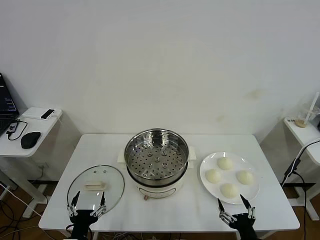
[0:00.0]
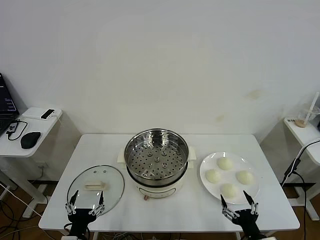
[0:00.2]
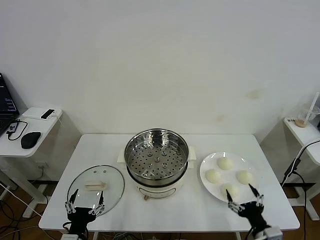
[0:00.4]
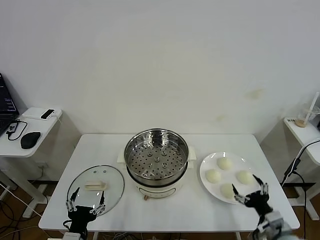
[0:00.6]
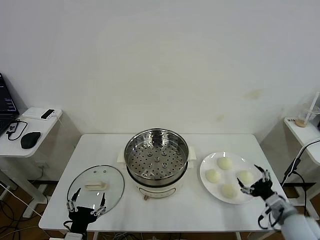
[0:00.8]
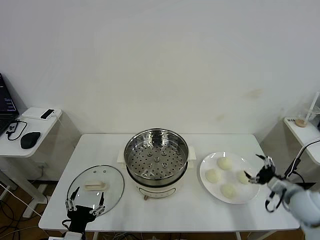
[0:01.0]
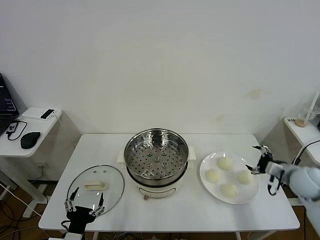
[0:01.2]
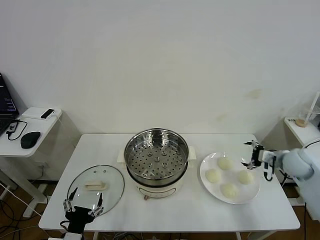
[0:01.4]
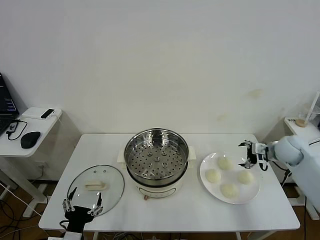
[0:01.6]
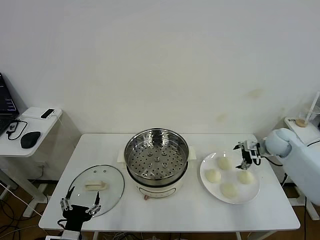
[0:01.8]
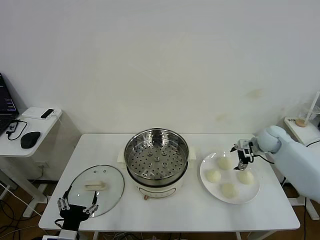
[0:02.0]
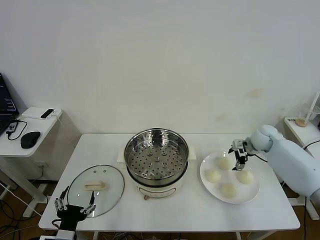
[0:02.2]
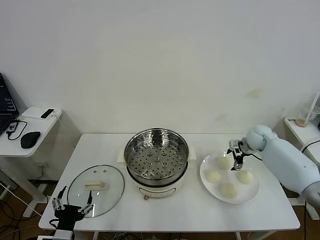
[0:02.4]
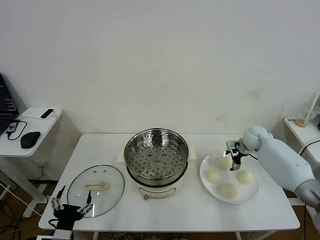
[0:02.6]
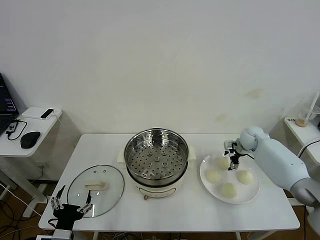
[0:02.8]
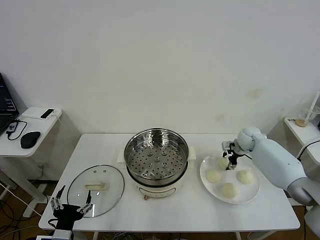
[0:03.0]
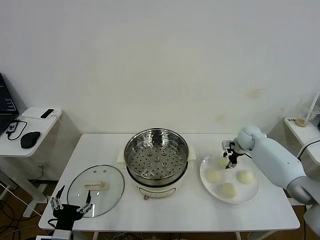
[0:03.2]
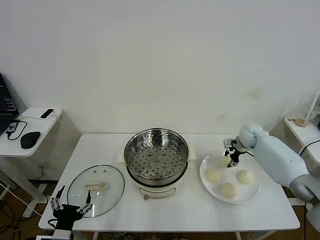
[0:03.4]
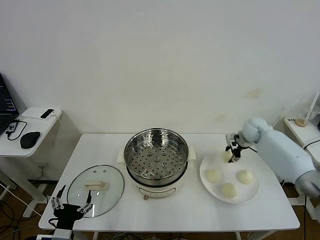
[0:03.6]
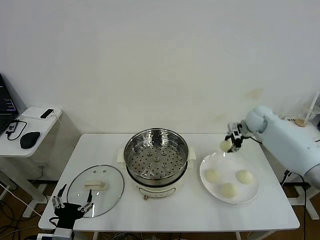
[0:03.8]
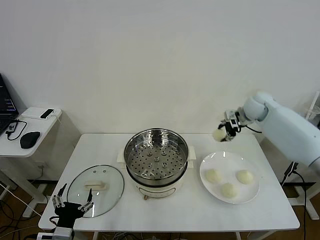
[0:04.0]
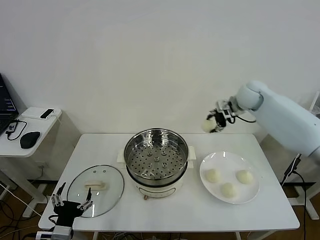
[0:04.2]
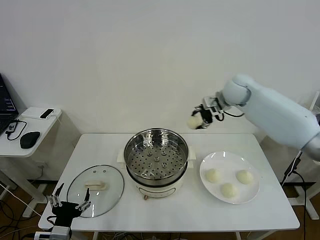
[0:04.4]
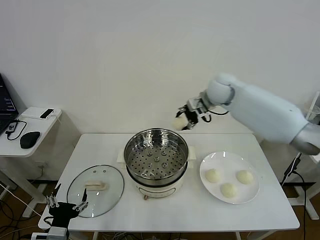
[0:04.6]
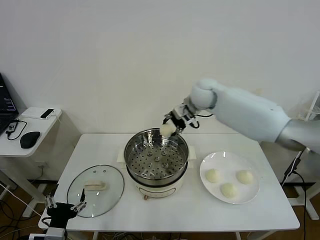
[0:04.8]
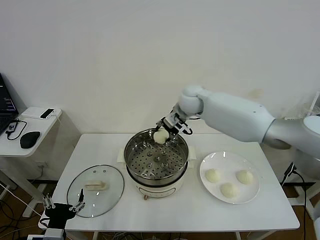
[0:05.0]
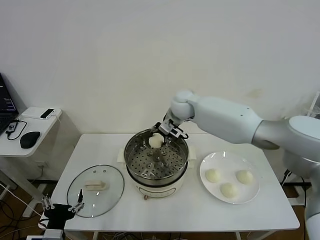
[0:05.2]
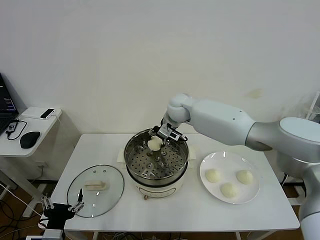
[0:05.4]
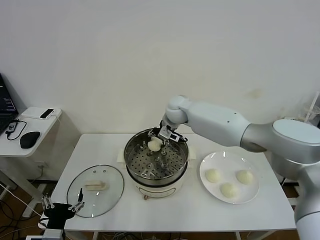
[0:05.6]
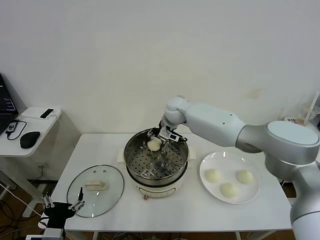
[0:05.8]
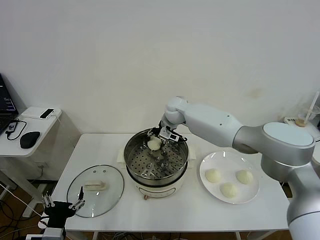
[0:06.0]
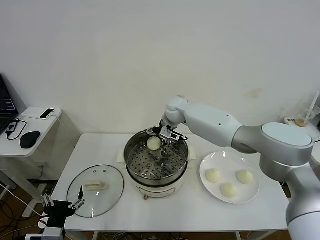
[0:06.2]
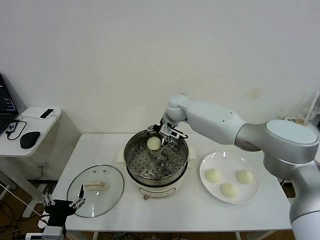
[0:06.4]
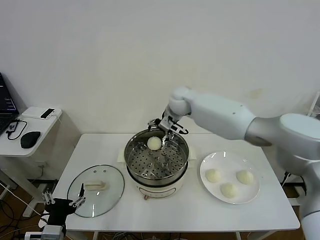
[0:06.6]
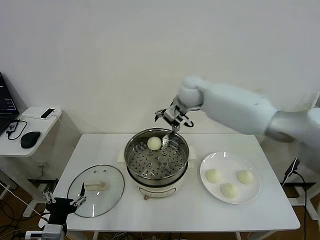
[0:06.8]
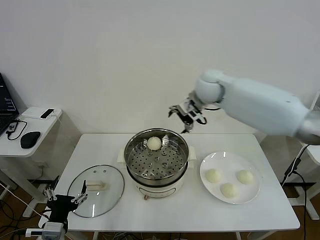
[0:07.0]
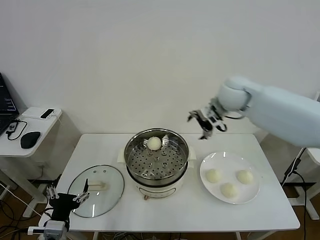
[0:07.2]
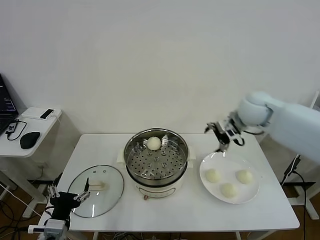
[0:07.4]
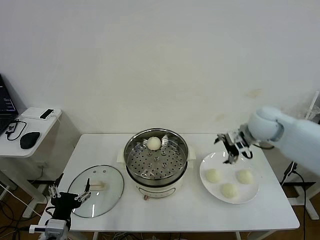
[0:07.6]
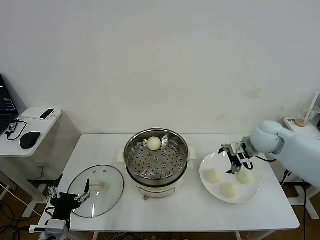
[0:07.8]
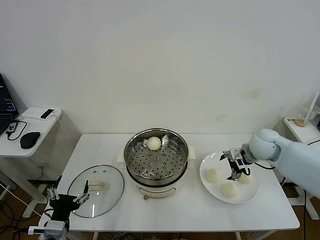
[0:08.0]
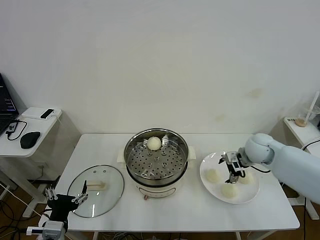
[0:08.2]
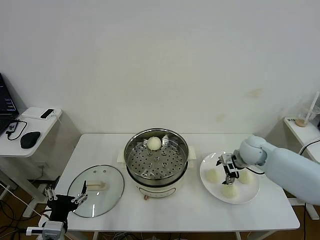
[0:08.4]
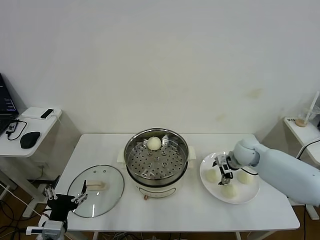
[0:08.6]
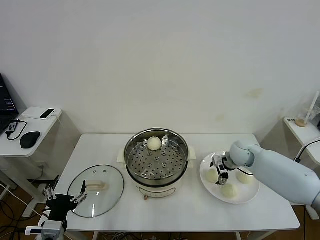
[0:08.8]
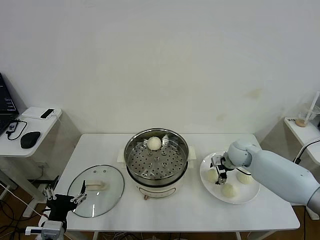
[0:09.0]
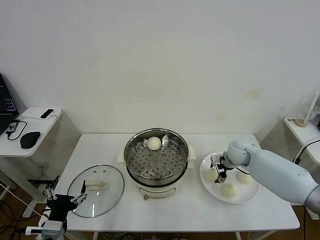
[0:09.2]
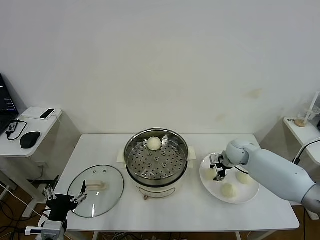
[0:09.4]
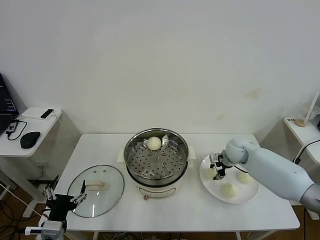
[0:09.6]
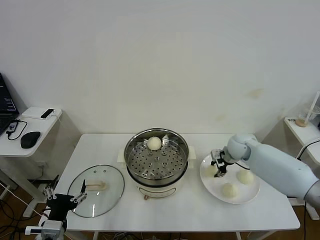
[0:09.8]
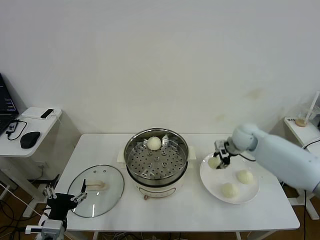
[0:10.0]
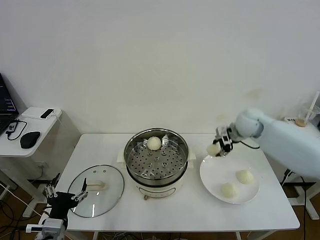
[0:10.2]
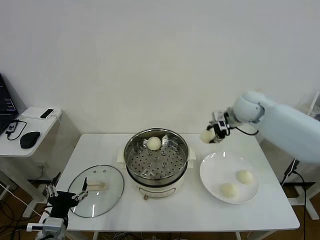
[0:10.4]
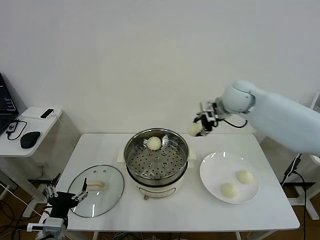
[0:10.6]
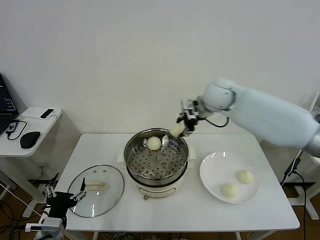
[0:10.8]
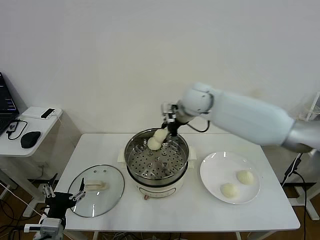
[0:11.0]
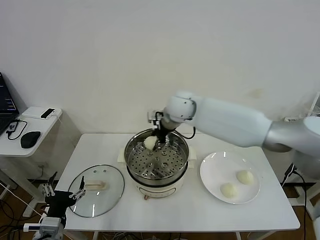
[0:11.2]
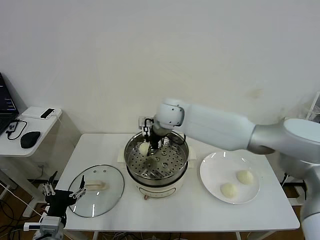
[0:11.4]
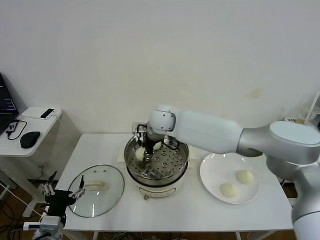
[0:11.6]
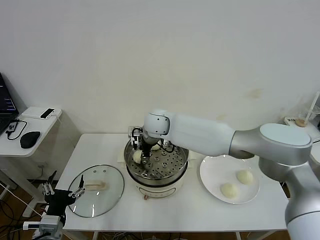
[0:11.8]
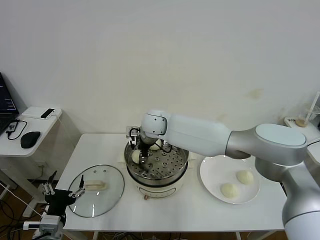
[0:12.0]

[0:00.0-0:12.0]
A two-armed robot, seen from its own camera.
Task of the whole recording: take steamed baozi put them in steamer then cover it.
Step, 0:00.0 to 0:03.0: Grasp the baozi in the plate with right gripper.
Step, 0:03.2 to 0:06.4: Place the baozi on the steamer with right gripper.
Step, 0:06.6 to 0:09.4: Grasp the baozi in the plate with right gripper.
0:01.6 to 0:03.0: The right gripper travels forward, to the left and downward by about 15 cm, and closes its fingers.
0:03.0 to 0:04.4: The right gripper goes approximately 25 cm upward and to the left.
0:04.4 to 0:06.0: The right gripper travels to the left and downward by about 20 cm.
0:06.0 to 0:07.6: The right gripper shifts approximately 30 cm to the right and backward, and opens up.
0:07.6 to 0:09.0: The right gripper is displaced downward by some 15 cm.
0:09.0 to 0:10.4: The right gripper moves upward, approximately 20 cm, and closes its fingers.
0:10.4 to 0:12.0: The right gripper travels to the left by some 30 cm.

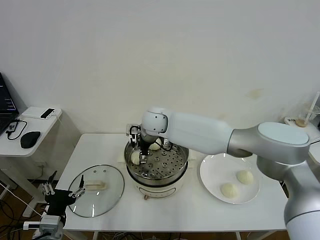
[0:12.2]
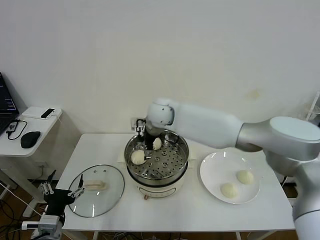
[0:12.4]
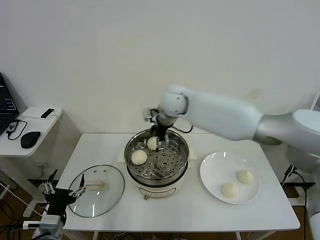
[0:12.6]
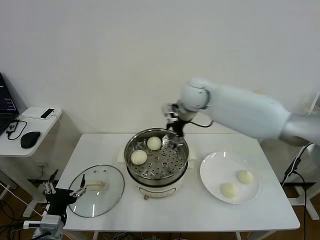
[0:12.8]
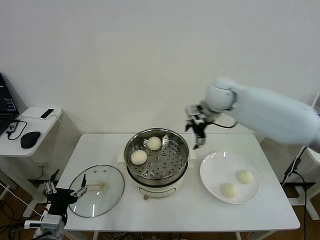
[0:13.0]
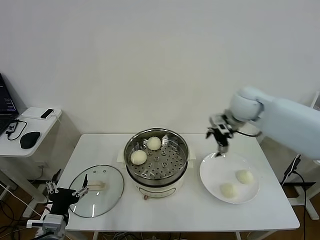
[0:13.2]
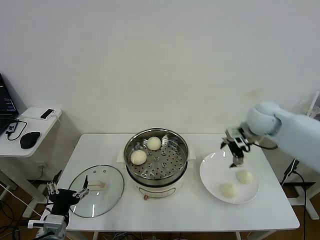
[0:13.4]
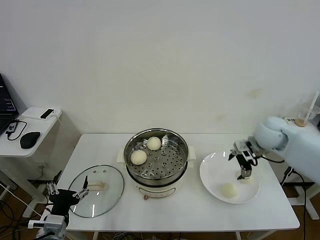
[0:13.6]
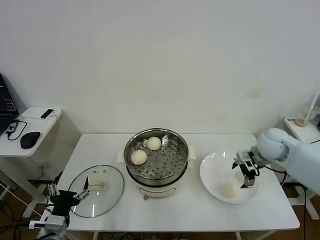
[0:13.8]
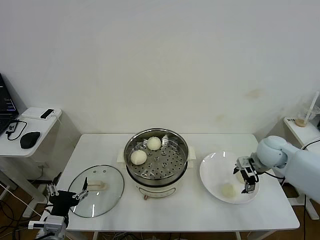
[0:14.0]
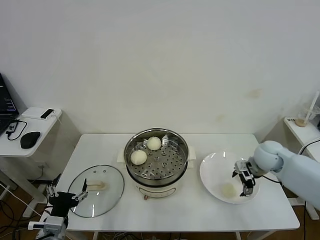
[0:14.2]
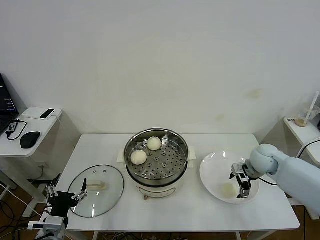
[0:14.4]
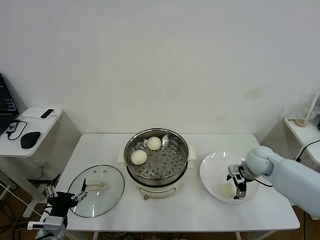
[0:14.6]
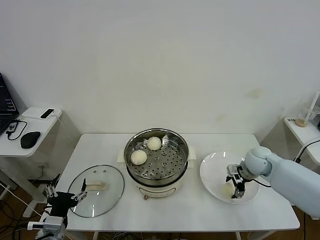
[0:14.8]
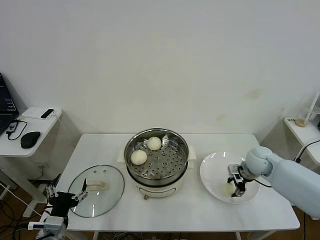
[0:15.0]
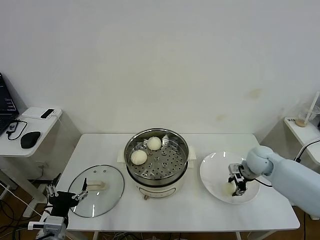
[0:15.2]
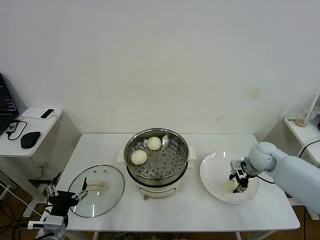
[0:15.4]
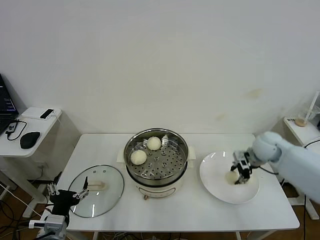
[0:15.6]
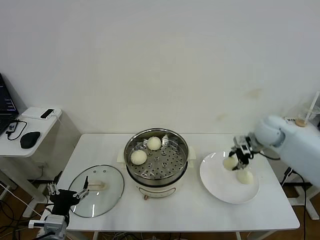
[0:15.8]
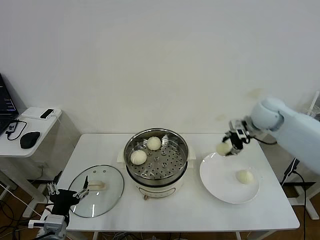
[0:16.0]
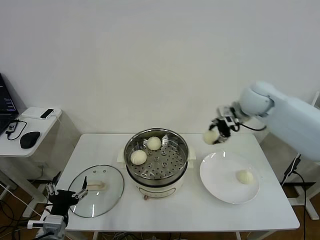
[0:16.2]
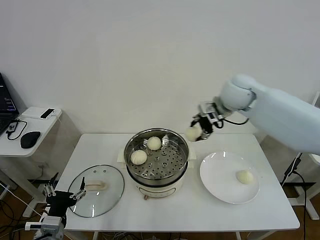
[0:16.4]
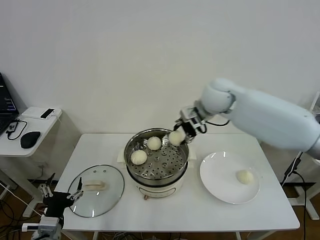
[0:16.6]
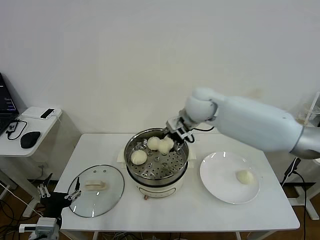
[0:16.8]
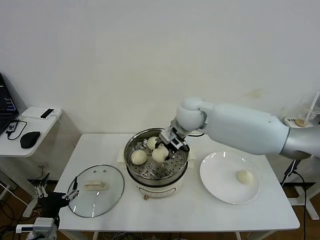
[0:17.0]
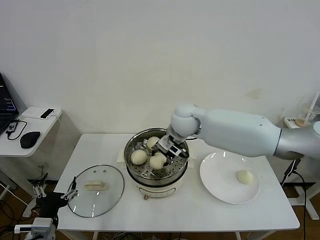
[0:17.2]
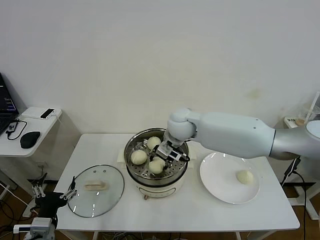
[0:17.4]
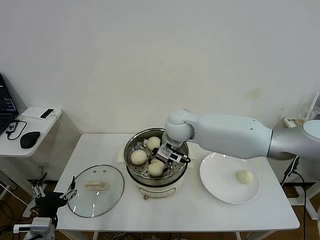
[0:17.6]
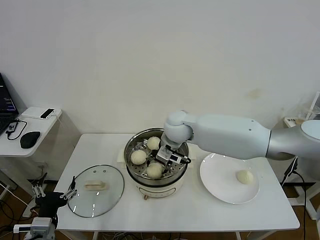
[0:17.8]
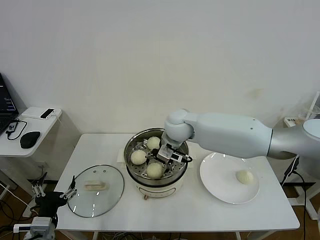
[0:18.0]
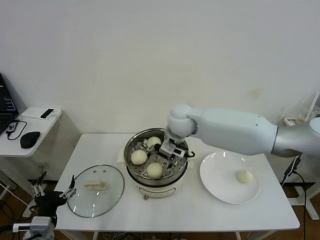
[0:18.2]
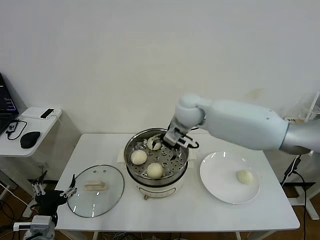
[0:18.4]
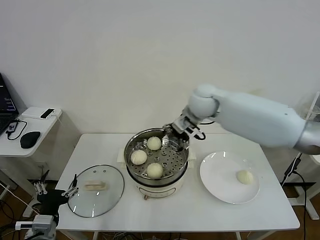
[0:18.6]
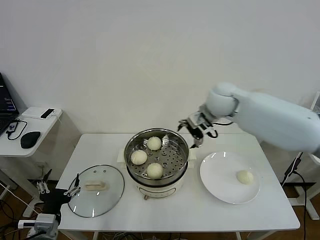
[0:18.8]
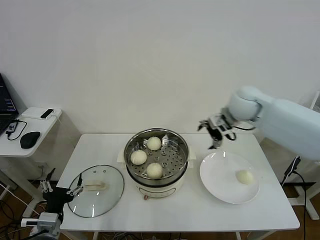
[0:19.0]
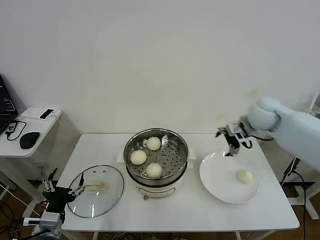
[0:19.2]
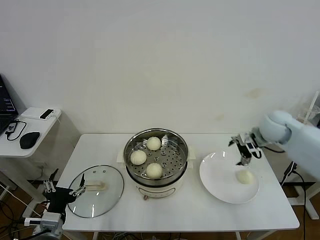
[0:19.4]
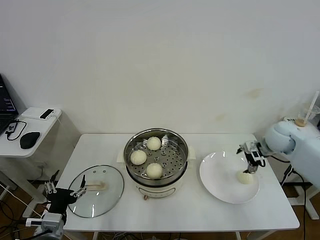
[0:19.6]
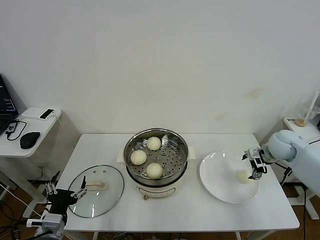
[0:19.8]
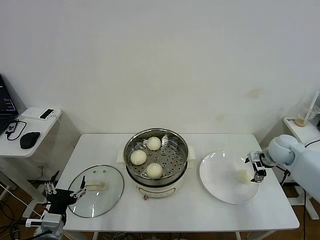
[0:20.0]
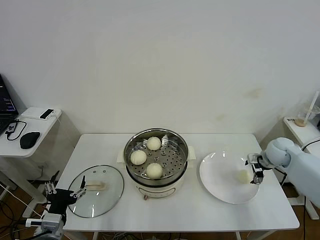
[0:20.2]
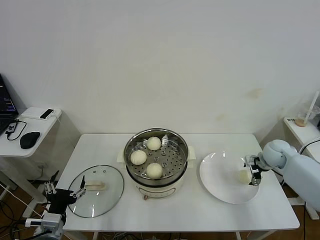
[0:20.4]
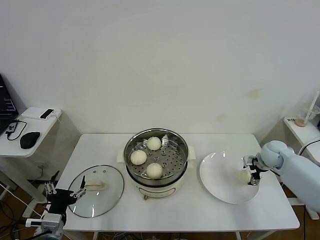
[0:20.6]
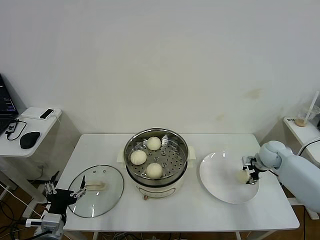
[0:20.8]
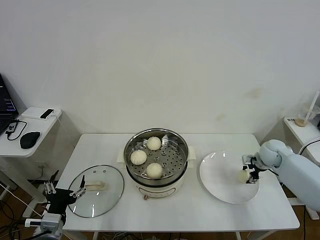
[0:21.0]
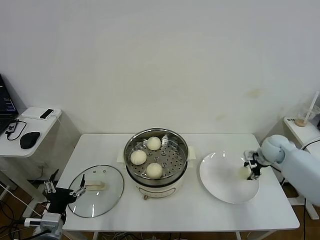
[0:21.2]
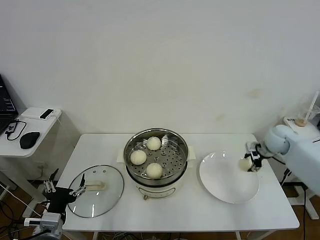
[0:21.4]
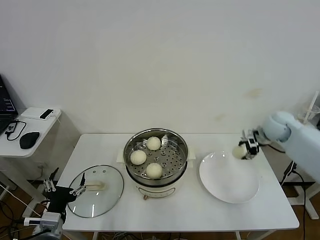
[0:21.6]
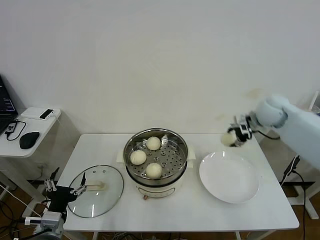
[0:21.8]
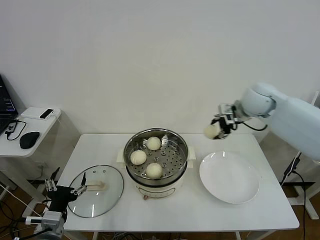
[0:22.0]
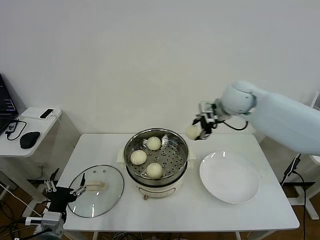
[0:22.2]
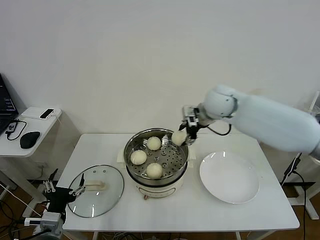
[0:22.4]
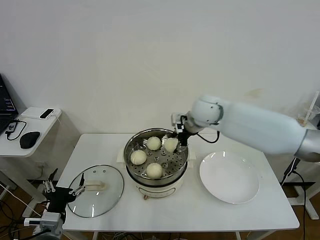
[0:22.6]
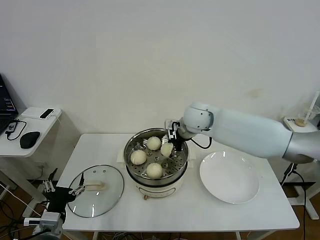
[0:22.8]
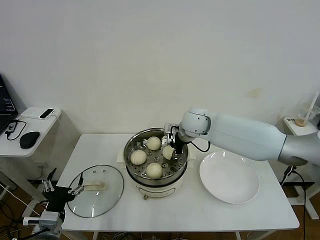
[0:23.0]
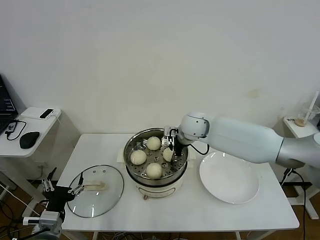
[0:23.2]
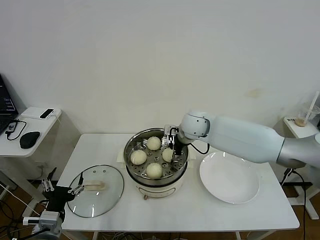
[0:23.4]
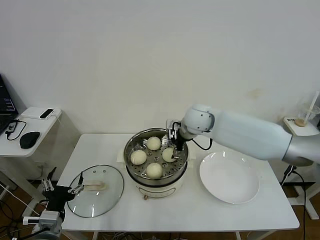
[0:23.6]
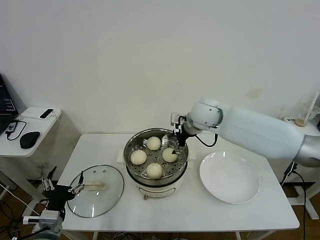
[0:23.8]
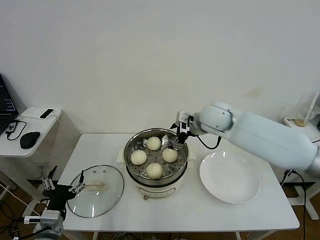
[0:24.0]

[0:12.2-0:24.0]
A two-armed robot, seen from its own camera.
Task of the whole recording: take steamed baozi put them in steamer then cover it.
Step, 0:12.6 to 0:15.0: Grasp the baozi in the plate with right gripper.
Step, 0:15.2 to 0:18.2: Place the baozi on the steamer with right gripper.
Step, 0:18.4 to 0:20.8: Grasp the baozi in the plate with right gripper.
Step, 0:21.2 to 0:23.6: Place the baozi on the steamer with right gripper.
0:12.2 to 0:13.6: The right gripper moves to the right, some 35 cm.
0:13.6 to 0:15.2: The right gripper heads downward, covering about 10 cm, and closes.
0:15.2 to 0:16.6: The right gripper moves upward and to the left, roughly 30 cm.
0:16.6 to 0:18.2: The right gripper is displaced to the left and downward by approximately 10 cm, and opens.
0:18.2 to 0:19.6: The right gripper shifts roughly 35 cm to the right.
0:19.6 to 0:21.0: The right gripper is displaced downward by about 10 cm, and closes its fingers.
0:21.0 to 0:22.6: The right gripper moves to the left and upward, roughly 35 cm.
0:22.6 to 0:24.0: The right gripper opens its fingers.
